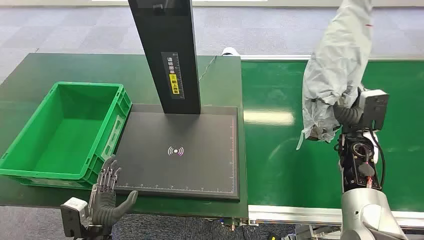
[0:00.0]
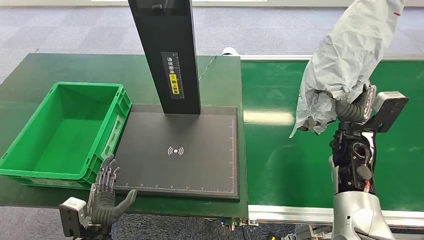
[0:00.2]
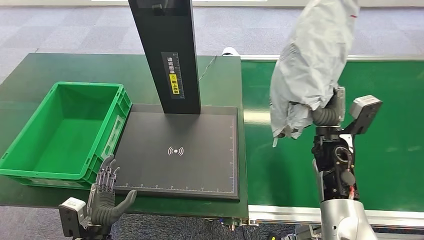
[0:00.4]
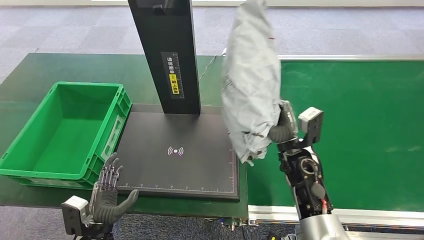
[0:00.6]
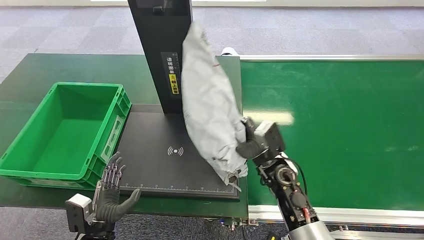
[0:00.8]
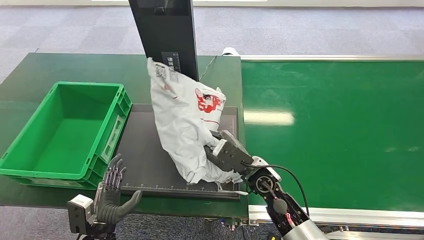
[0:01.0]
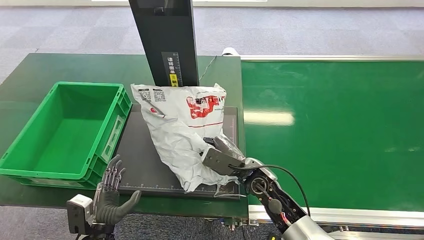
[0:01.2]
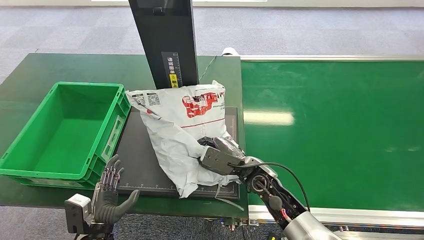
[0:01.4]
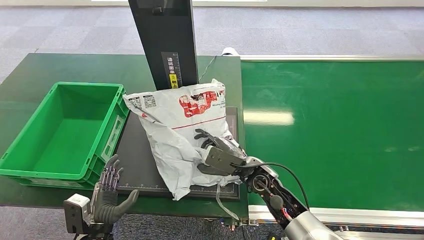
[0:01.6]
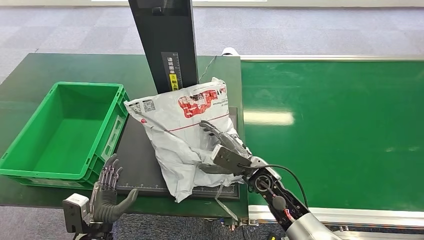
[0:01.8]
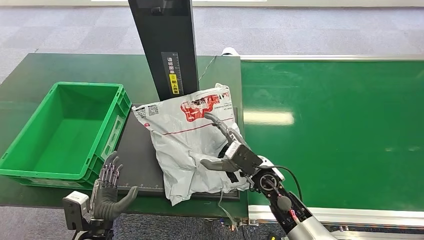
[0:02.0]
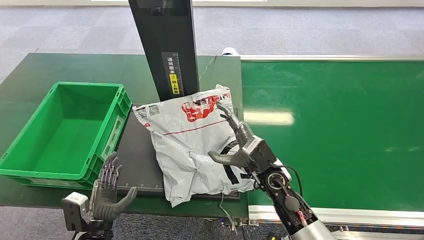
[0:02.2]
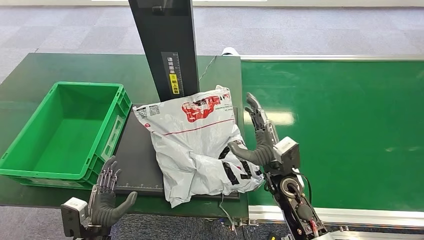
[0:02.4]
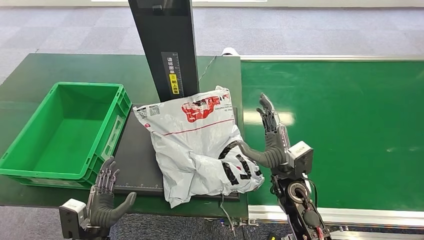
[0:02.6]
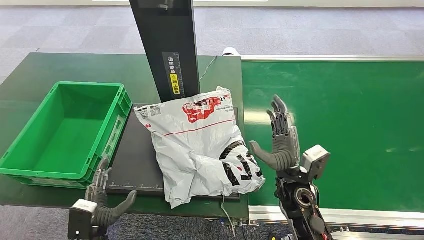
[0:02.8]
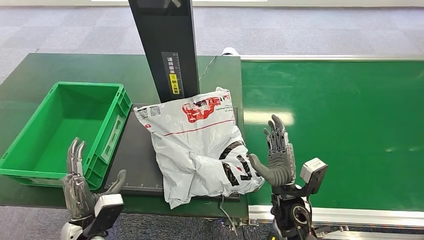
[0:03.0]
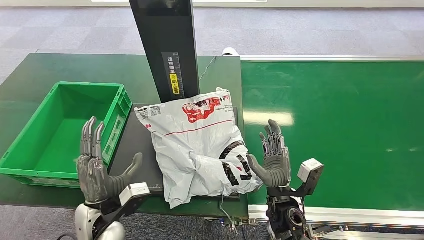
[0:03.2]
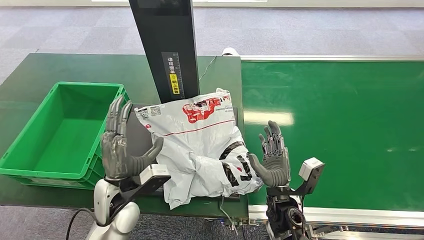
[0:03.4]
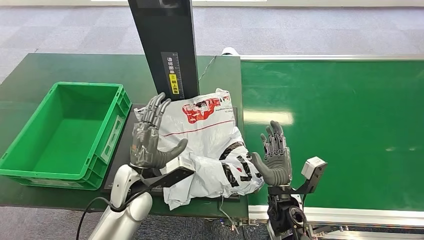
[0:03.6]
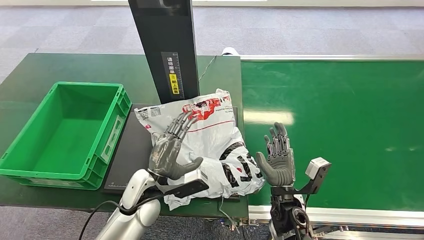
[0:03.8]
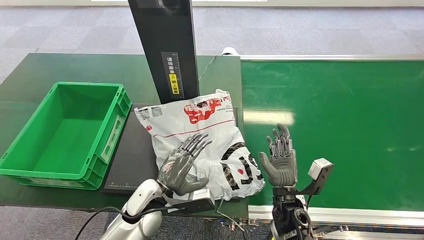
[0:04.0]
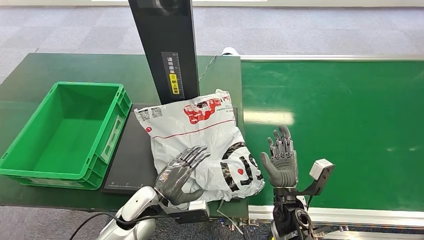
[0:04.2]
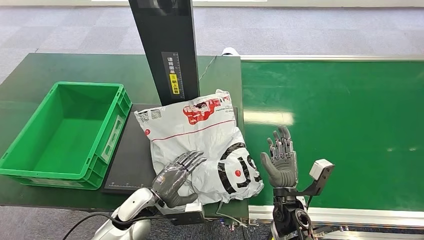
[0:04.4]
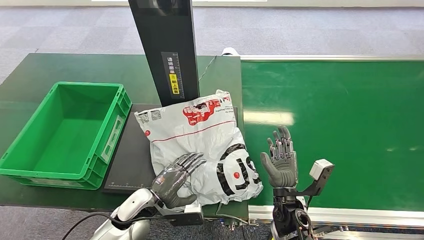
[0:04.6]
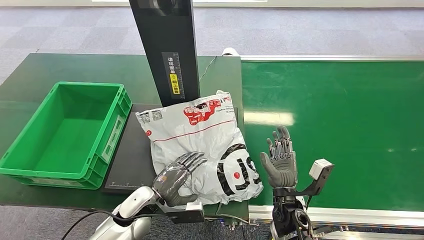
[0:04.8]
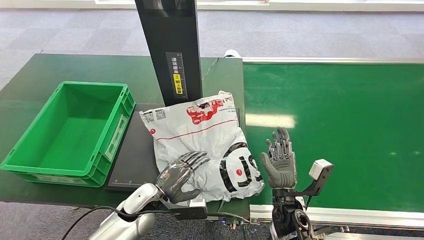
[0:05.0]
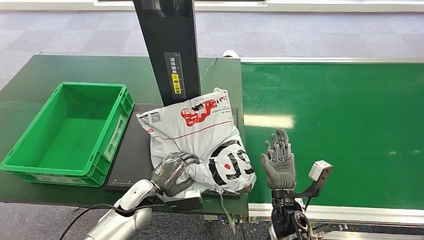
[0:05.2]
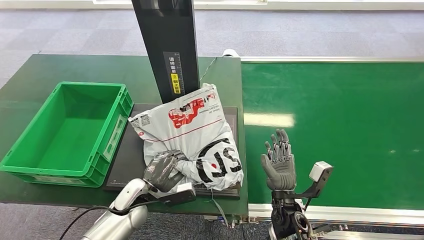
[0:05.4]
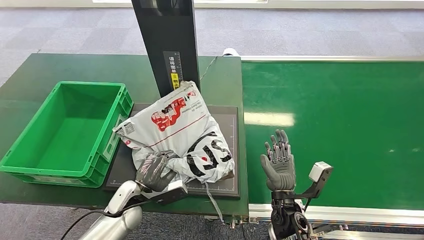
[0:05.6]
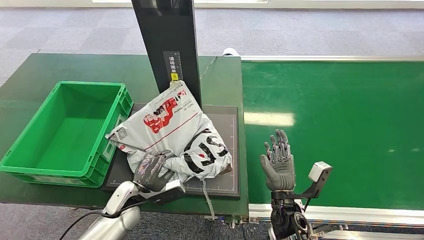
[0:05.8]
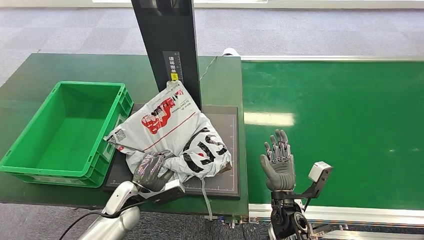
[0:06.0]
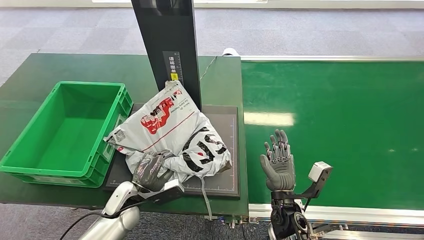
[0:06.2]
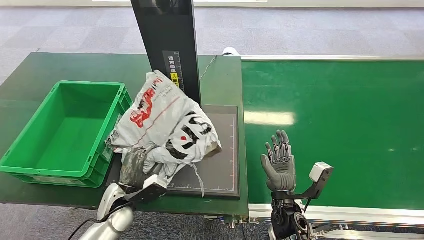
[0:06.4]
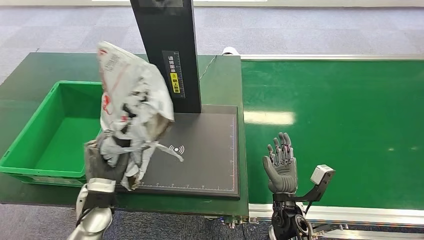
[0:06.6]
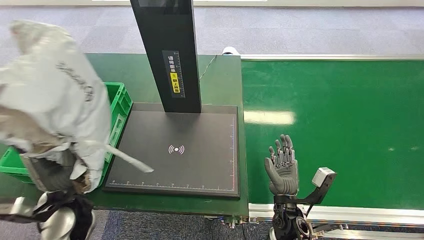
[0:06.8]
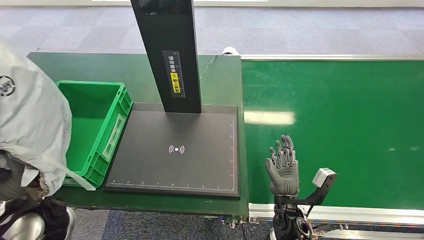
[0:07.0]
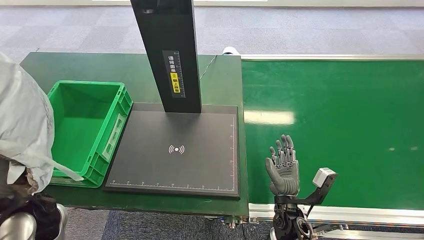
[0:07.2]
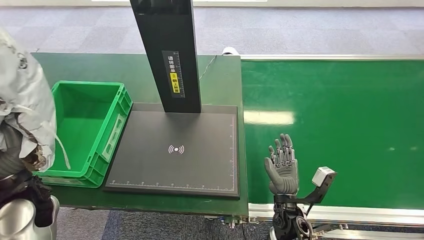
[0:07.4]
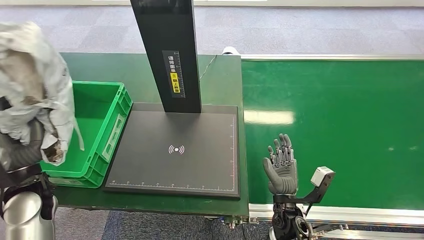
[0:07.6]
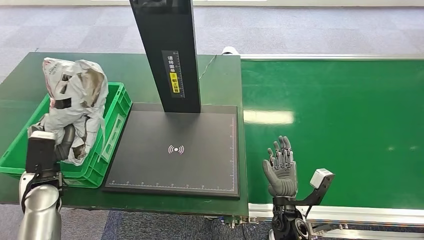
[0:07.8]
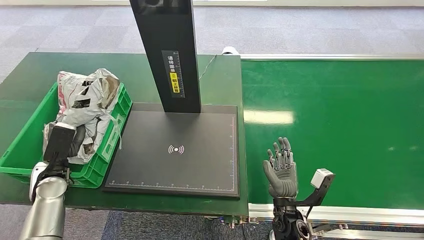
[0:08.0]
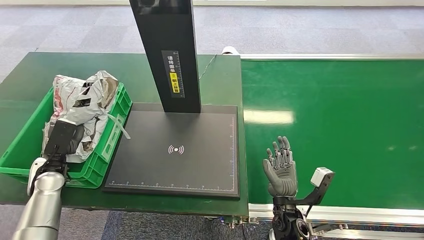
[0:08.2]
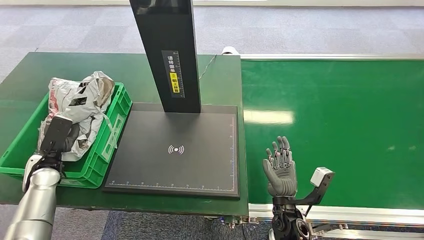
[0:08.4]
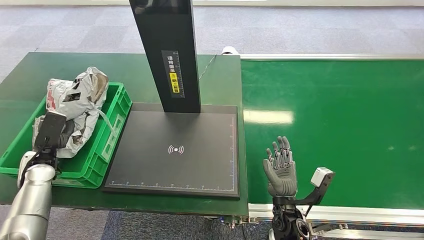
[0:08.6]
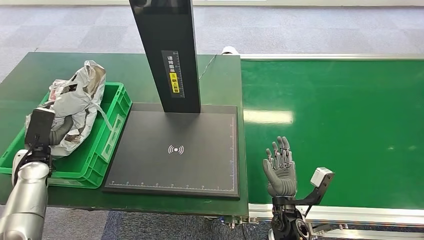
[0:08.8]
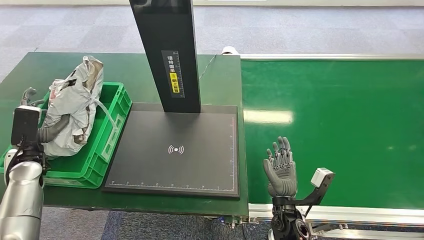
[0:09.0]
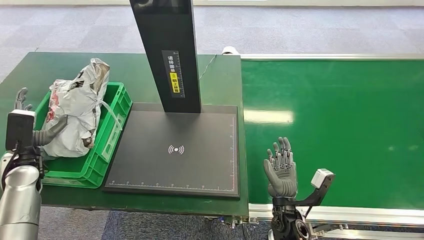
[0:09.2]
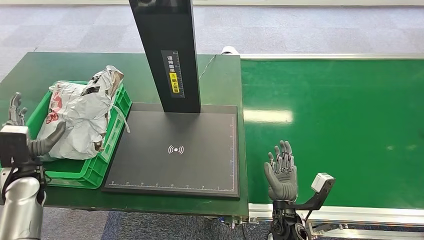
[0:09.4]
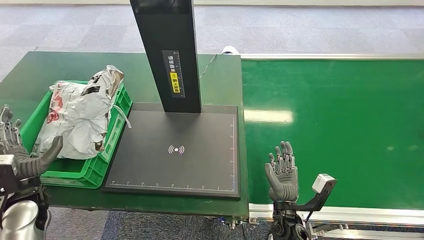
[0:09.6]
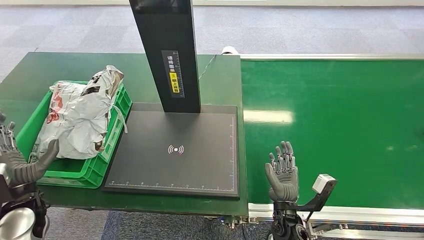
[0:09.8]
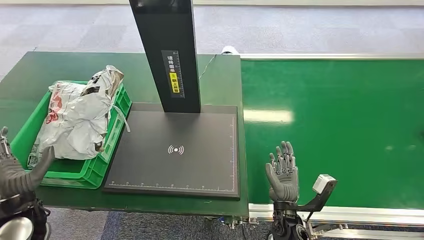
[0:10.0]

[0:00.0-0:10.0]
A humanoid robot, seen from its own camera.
Task of the whole recording: Weigh the package on the weighing device and place it in the left basket.
Step, 0:01.6 to 0:01.8: Place the package onto the inbound machine.
0:01.4 to 0:02.8: The right hand is displaced to the right by roughly 5 cm.
0:02.8 to 0:04.2: The left hand heads to the right and forward, covering some 15 cm, while the right hand goes about 5 cm downward.
0:07.2 to 0:08.6: The left hand heads to the left, forward and downward, covering approximately 20 cm.
0:08.6 to 0:10.0: The left hand travels backward and to the right by approximately 15 cm.
